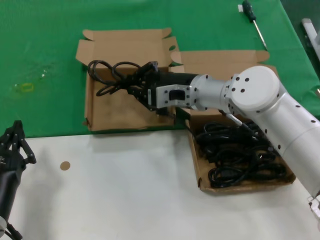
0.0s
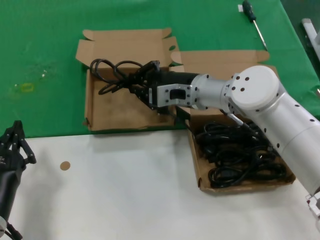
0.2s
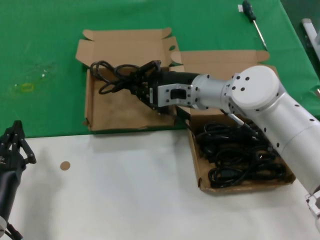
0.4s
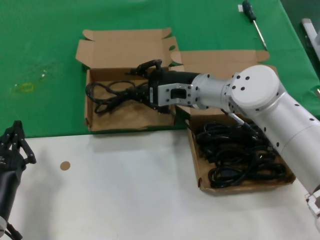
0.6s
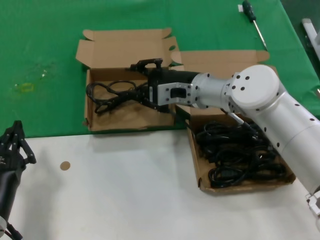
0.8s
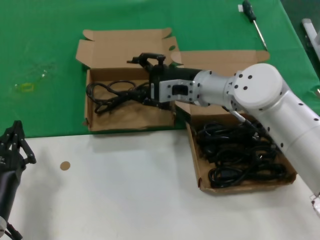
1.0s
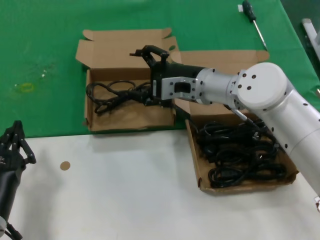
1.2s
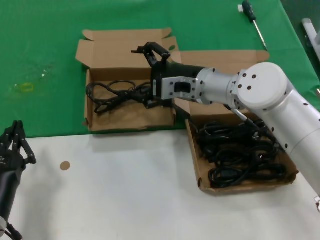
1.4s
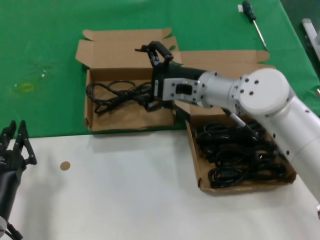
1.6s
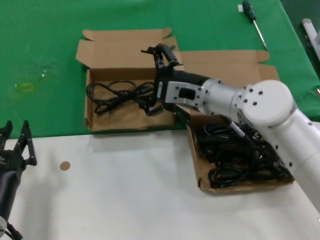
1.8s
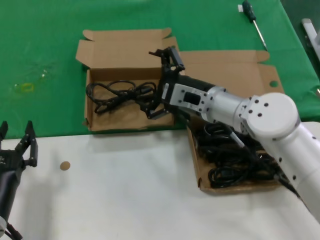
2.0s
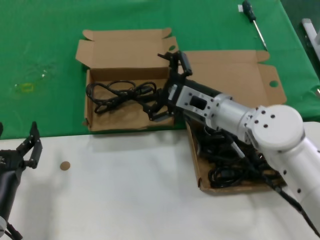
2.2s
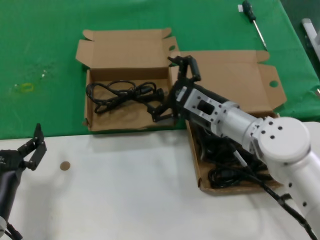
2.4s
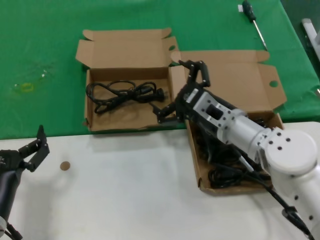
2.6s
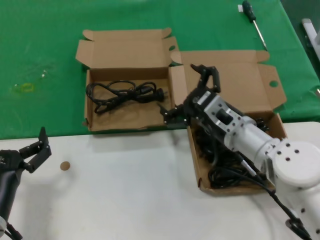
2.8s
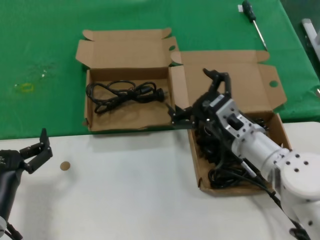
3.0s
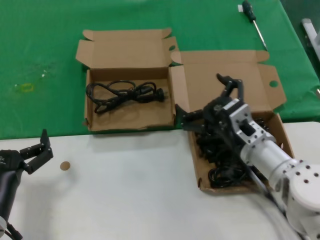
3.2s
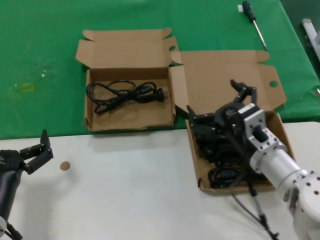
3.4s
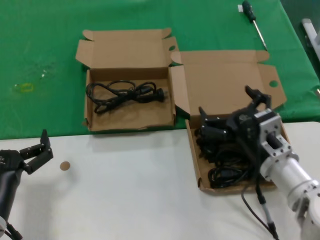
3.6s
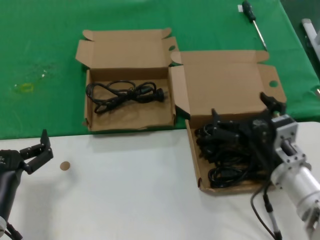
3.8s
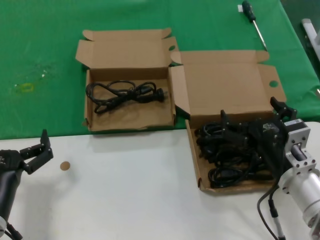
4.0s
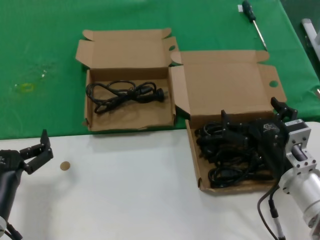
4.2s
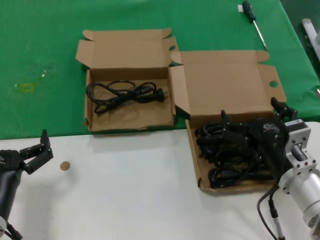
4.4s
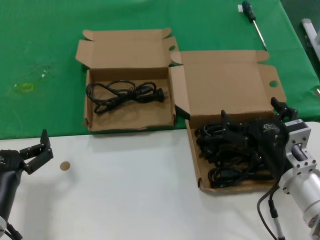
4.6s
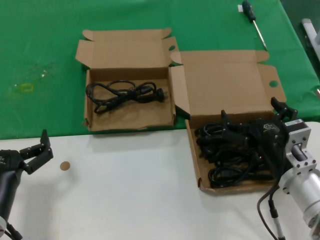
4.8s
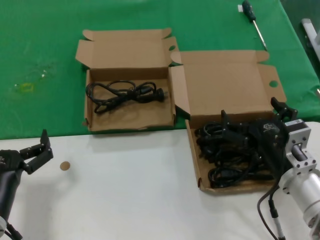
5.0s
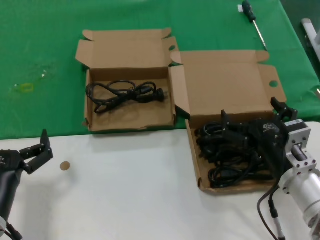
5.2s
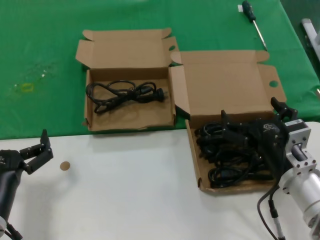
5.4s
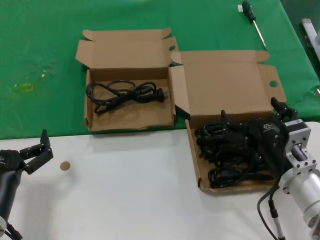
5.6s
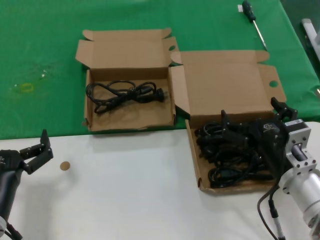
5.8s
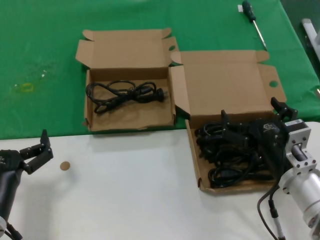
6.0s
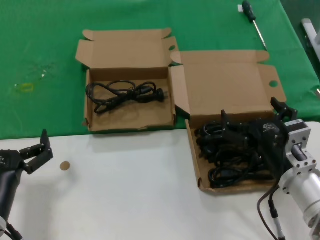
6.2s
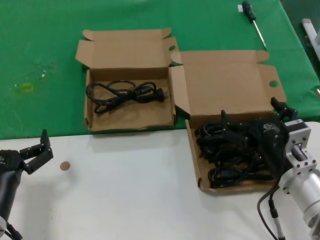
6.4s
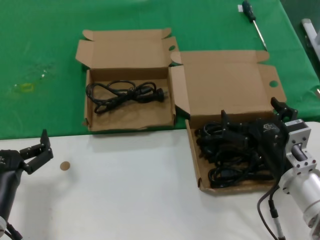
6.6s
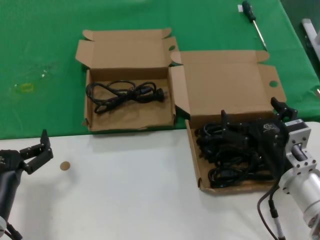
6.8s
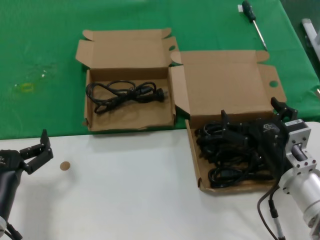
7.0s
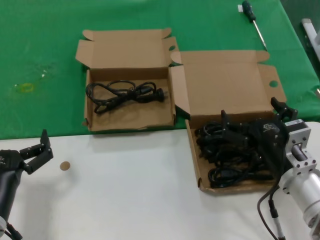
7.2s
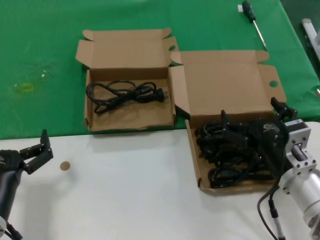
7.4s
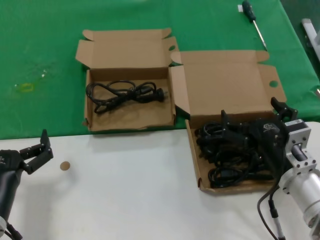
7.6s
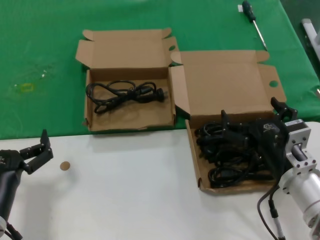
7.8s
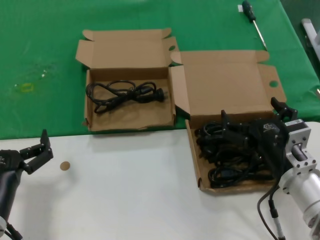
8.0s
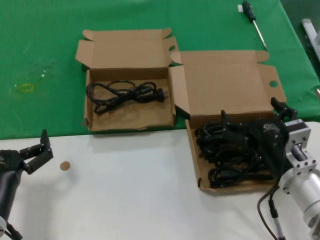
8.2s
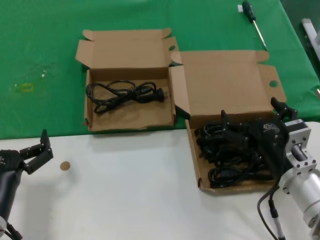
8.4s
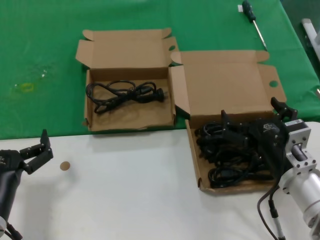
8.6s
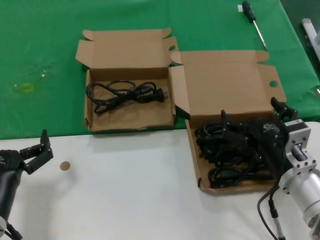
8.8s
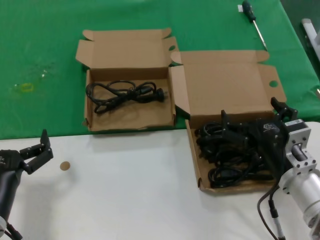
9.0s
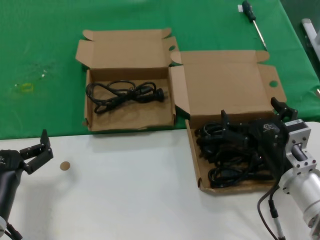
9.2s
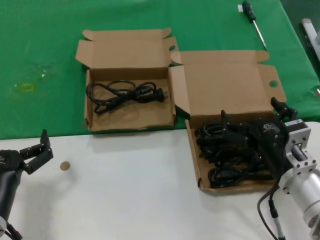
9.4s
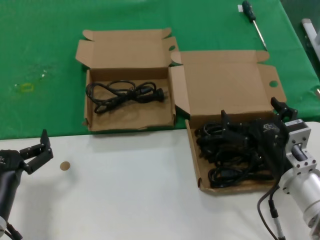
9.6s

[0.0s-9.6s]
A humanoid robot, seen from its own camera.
Task of the whole recording: take the parts from the box containing them and put them into an empty box.
0.0s to 1.6s: The hands make only small movements.
1.6s to 3.2s: The right hand shifts roughly 15 cm backward, downward and to the right.
3.2s to 4.8s: The right hand is displaced backward by roughly 5 cm.
4.8s to 9.6s: Both hands stay put.

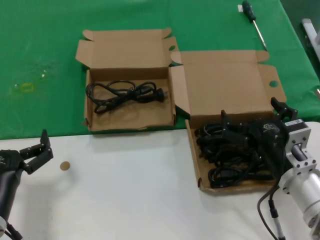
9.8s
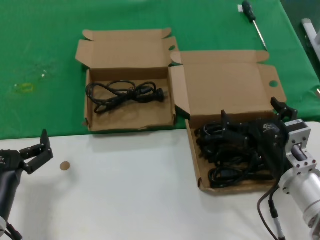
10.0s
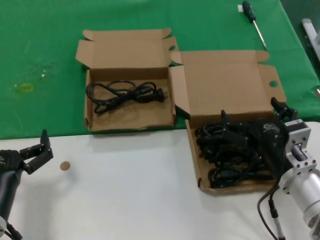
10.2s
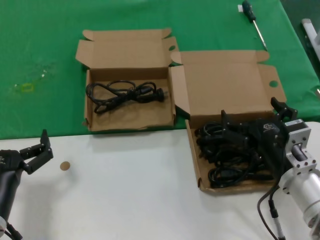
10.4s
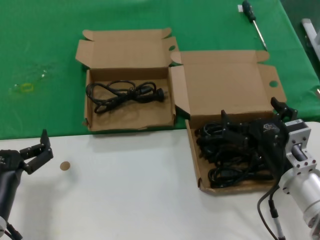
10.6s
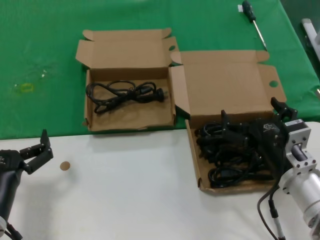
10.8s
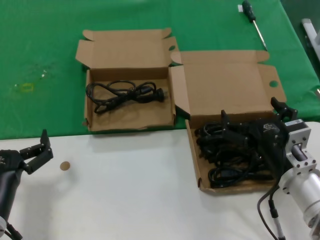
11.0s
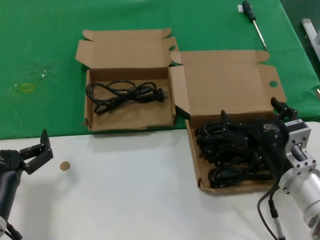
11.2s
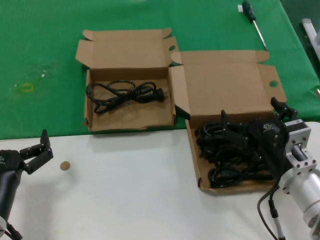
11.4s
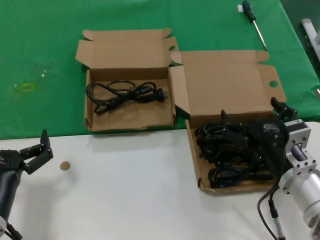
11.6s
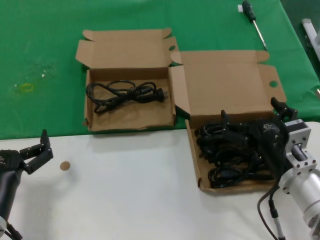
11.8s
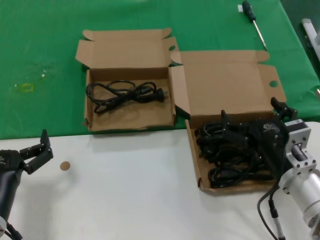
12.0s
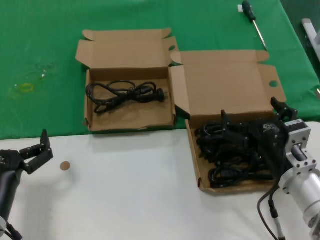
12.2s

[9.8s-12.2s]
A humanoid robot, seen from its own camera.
Task of the whole recording: take the parts from the box containing them and put them into an empty box.
9.8s to 12.2s: Neither hand changes place.

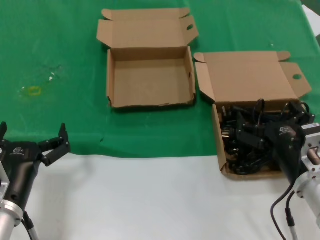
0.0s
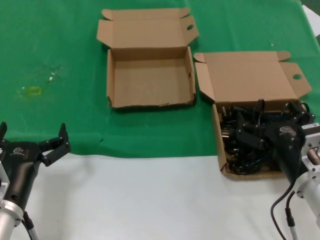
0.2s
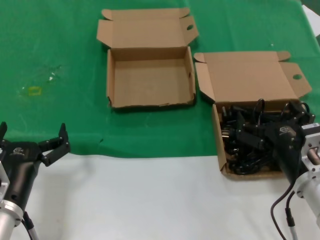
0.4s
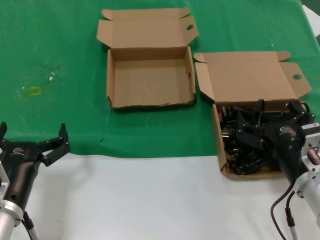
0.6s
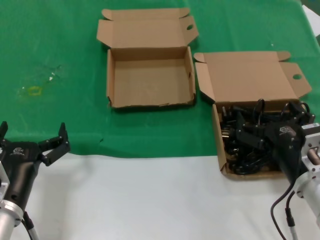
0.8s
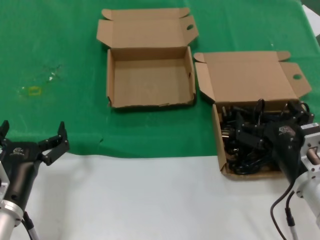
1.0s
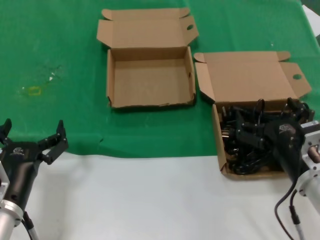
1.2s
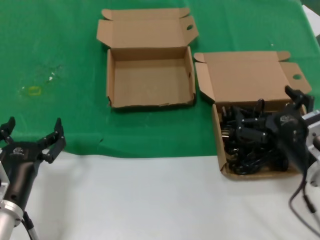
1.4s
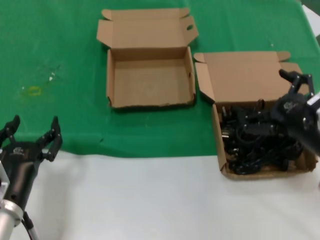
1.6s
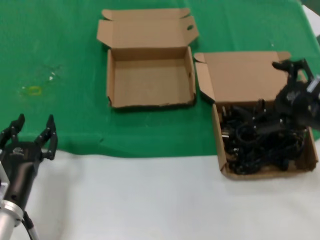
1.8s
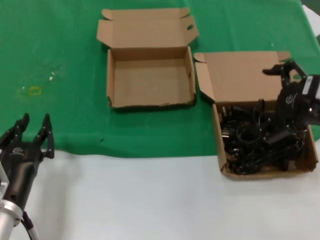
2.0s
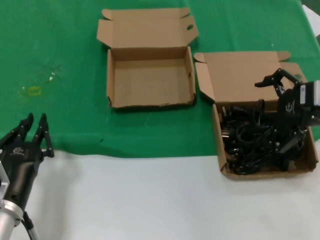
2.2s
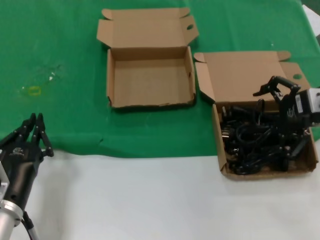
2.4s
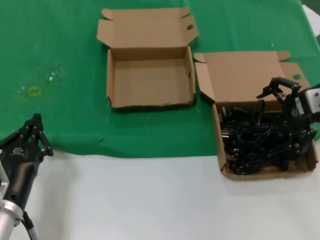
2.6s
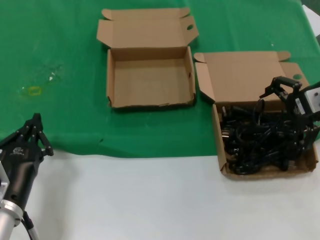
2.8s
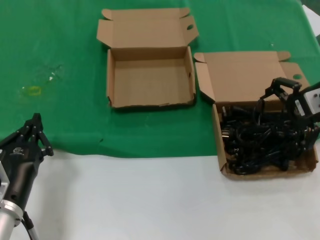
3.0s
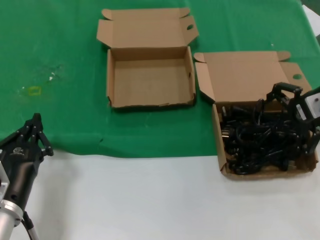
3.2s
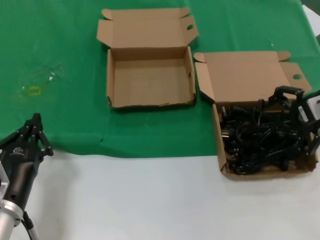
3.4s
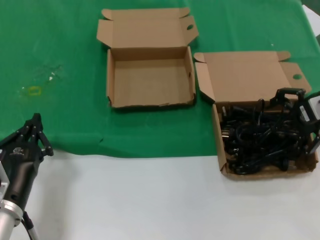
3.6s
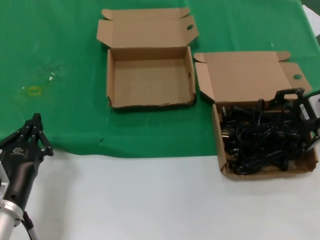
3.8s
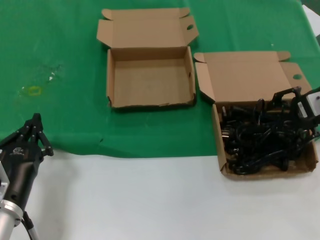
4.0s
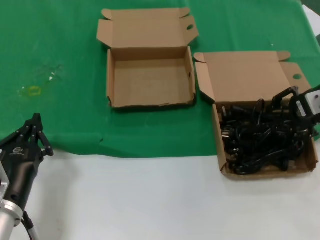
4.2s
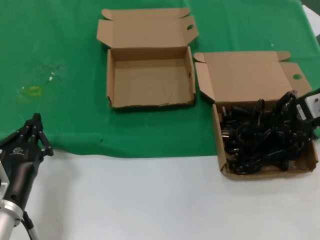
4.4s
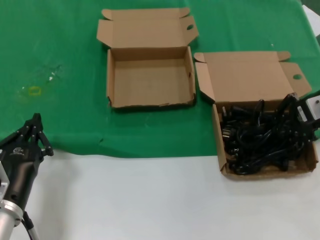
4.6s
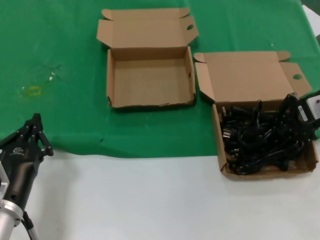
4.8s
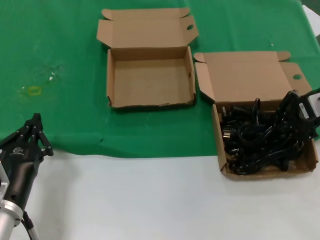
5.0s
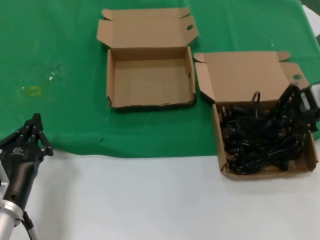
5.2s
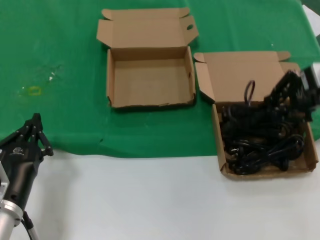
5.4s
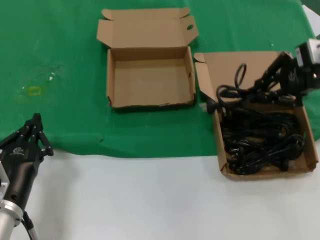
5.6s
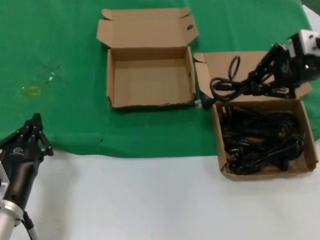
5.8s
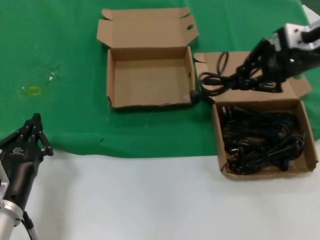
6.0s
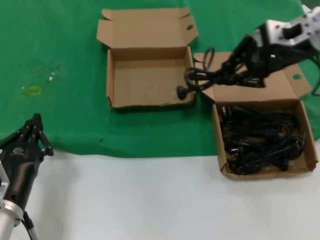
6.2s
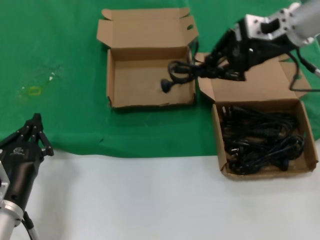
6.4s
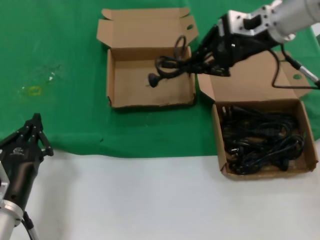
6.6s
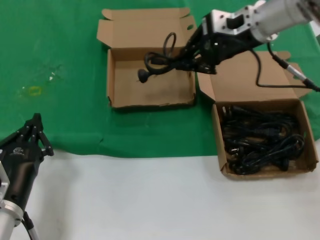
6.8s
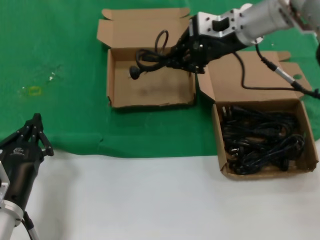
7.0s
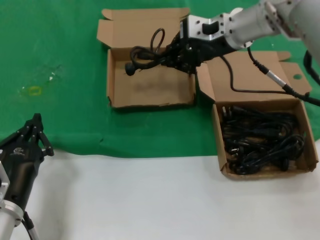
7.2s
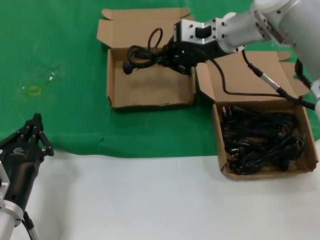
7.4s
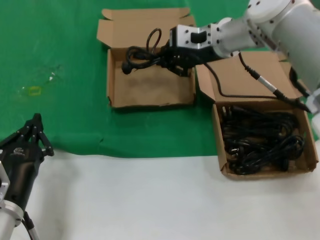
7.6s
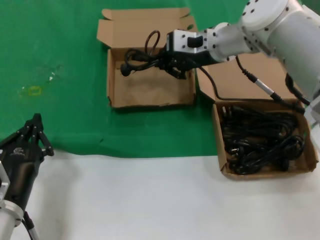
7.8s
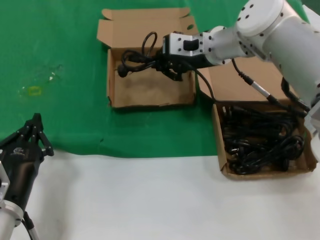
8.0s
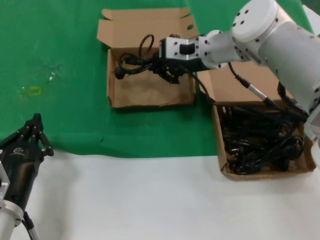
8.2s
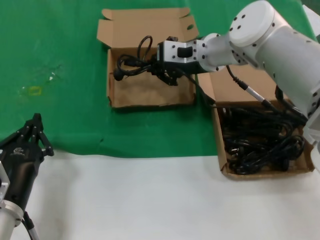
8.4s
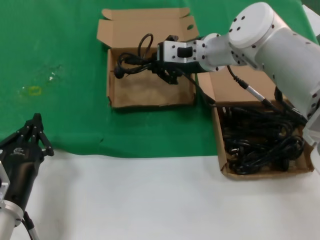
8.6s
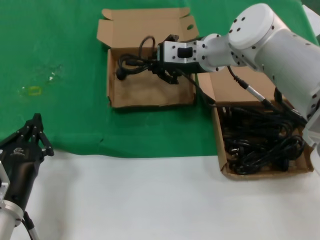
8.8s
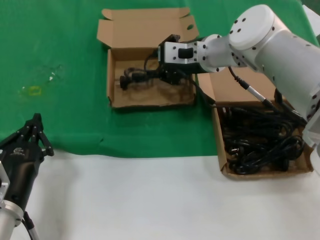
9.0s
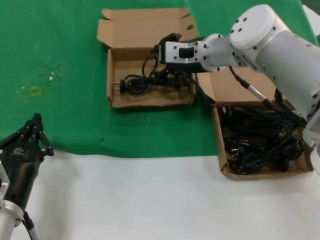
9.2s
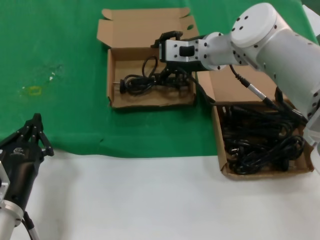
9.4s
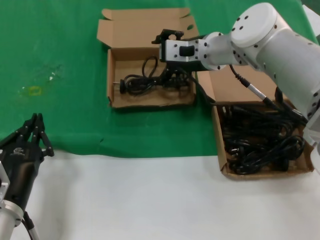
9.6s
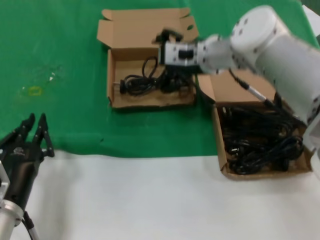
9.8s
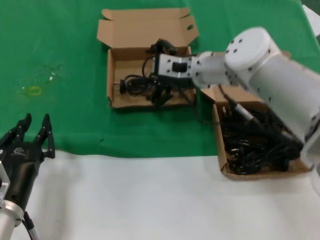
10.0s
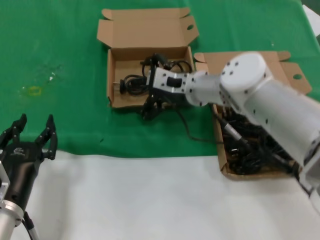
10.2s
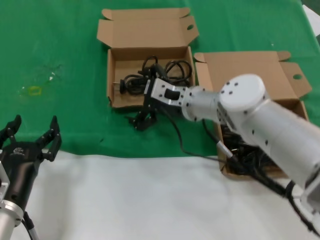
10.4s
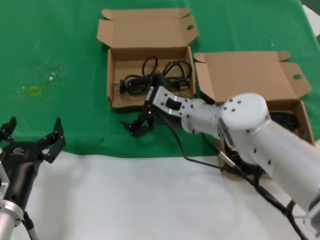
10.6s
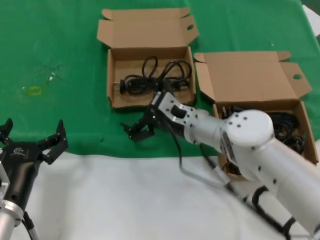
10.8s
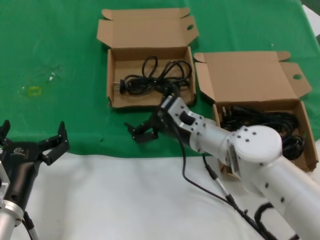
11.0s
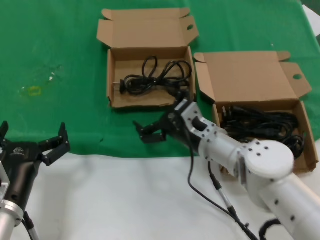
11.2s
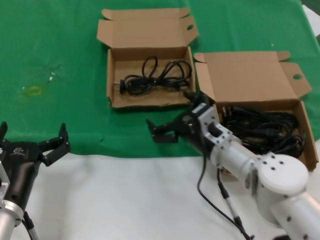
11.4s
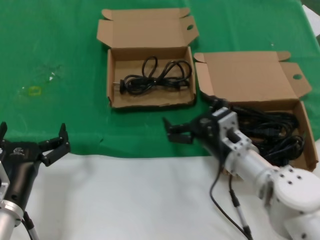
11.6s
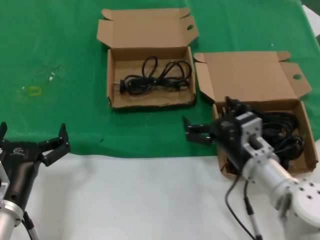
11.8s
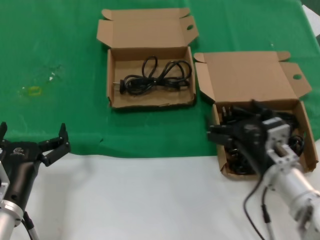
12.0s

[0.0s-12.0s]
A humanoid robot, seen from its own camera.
Task of the whole recording: take the parts from the box containing them and put them into an empty box.
Step, 0.0s to 4.8s: Grasp the data cable.
Step, 5.0s to 9.2s: Place the data cable in the another box.
0.0s to 1.6s: The right hand shifts about 5 cm upward.
1.6s to 3.0s: The right hand shifts about 20 cm forward and upward.
3.0s to 4.4s: Both hands stay about where they are.
4.4s to 6.0s: The right hand is displaced upward and to the left by some 10 cm.
6.0s to 7.6s: The right hand is displaced to the left and forward by some 20 cm.
7.6s to 9.0s: The hands stay close to where they were, moving slightly.
9.0s to 10.4s: The right hand goes about 10 cm downward.
10.4s to 12.0s: The right hand shifts some 25 cm backward, to the right and downward.
